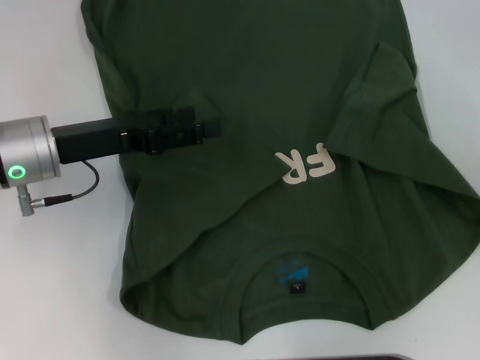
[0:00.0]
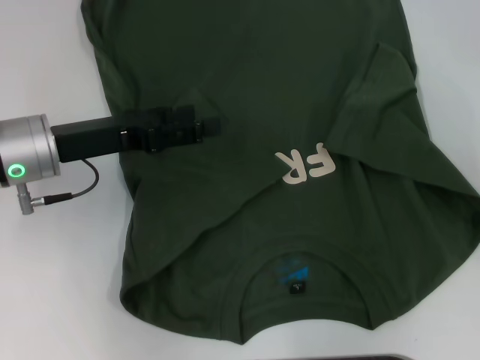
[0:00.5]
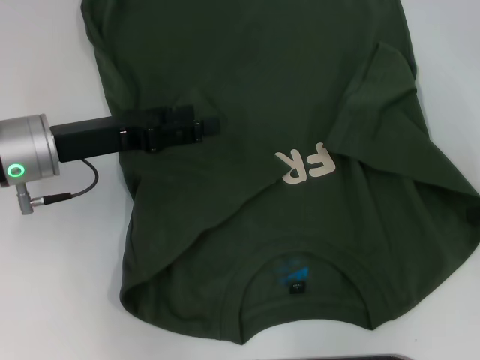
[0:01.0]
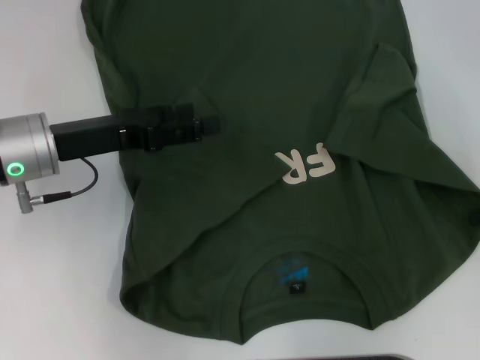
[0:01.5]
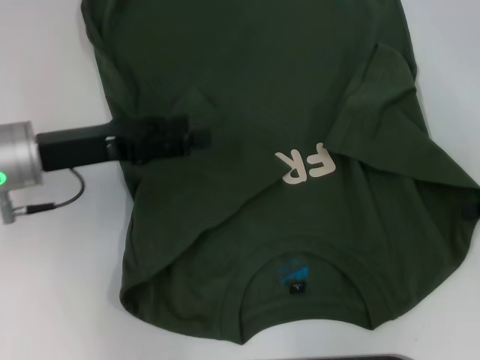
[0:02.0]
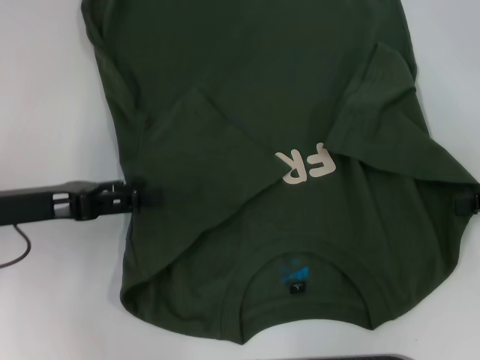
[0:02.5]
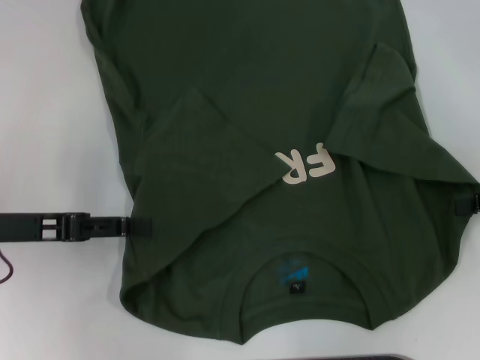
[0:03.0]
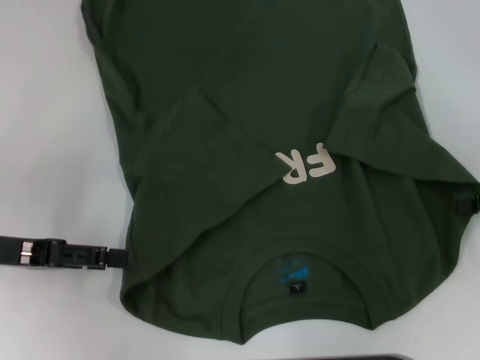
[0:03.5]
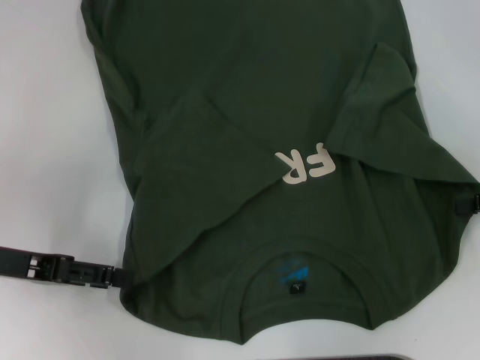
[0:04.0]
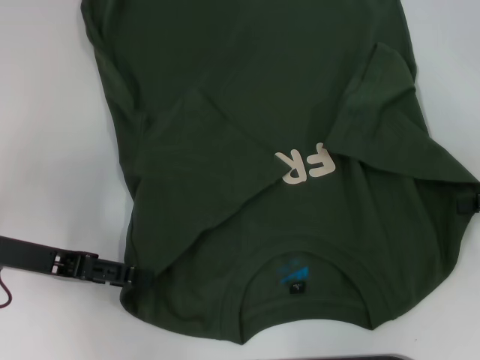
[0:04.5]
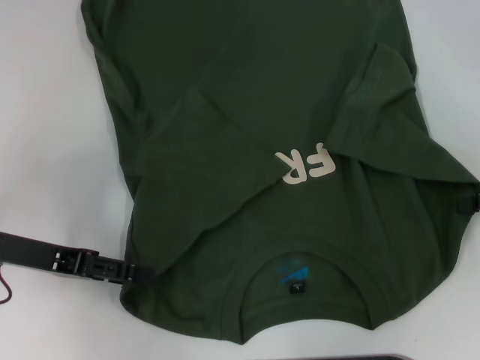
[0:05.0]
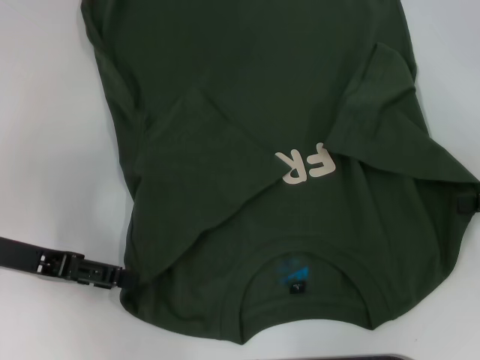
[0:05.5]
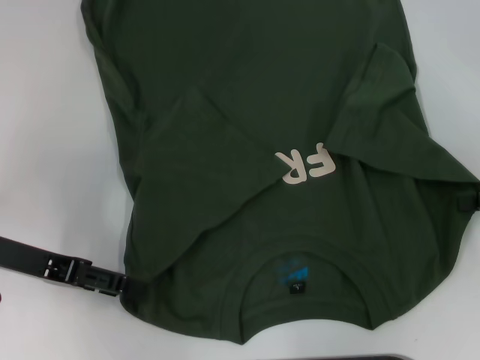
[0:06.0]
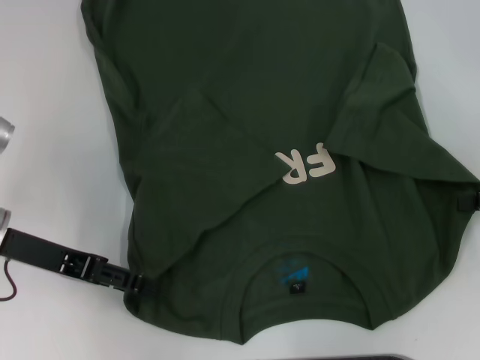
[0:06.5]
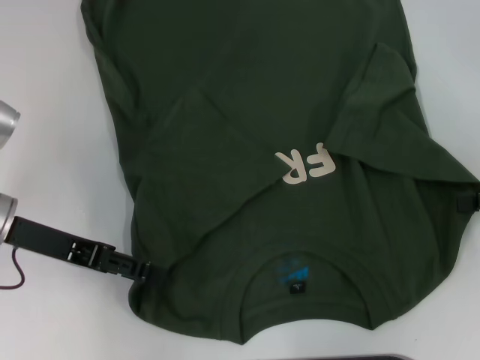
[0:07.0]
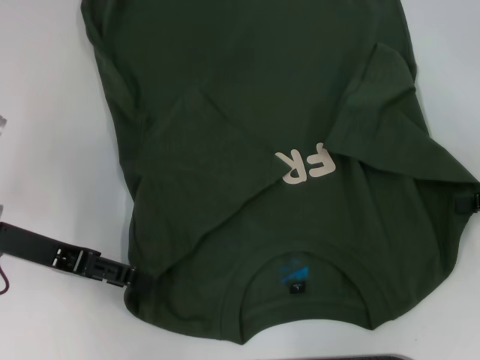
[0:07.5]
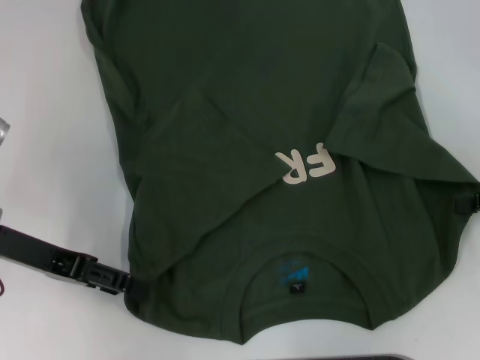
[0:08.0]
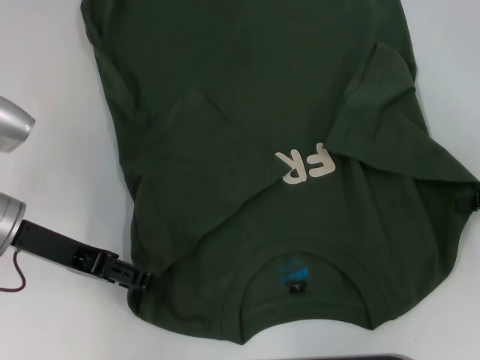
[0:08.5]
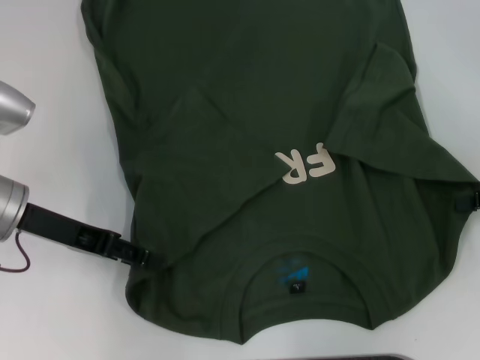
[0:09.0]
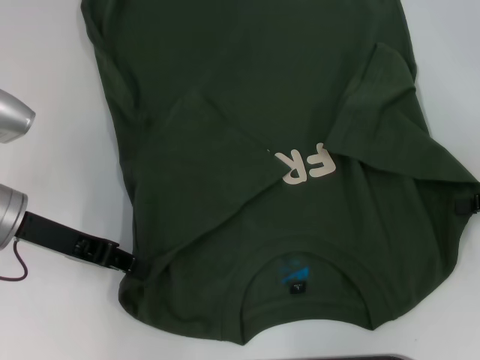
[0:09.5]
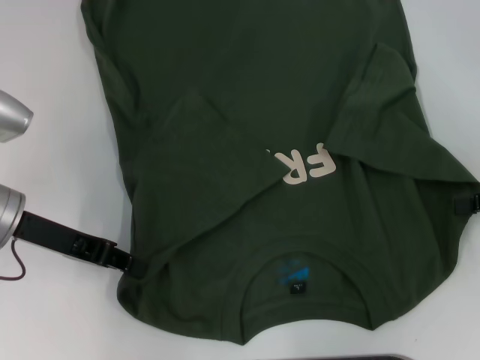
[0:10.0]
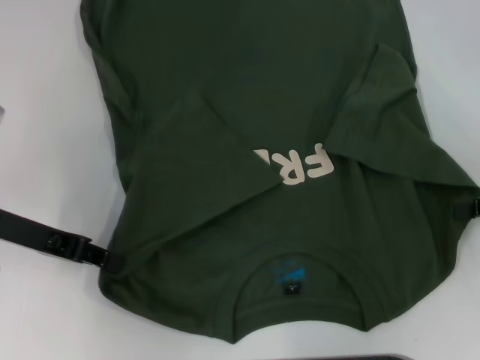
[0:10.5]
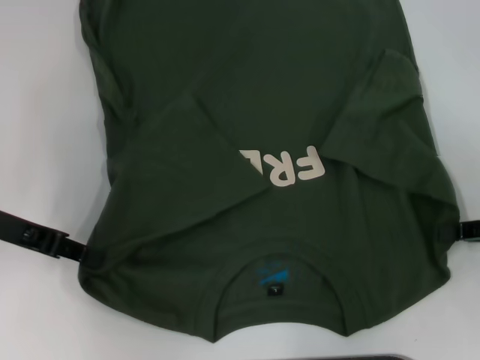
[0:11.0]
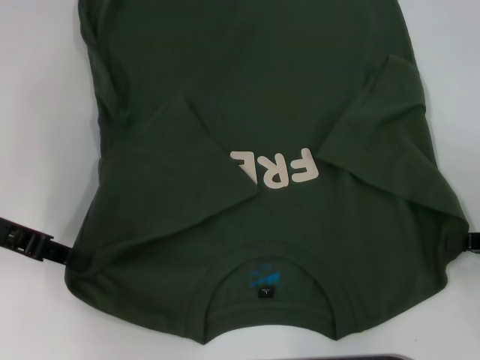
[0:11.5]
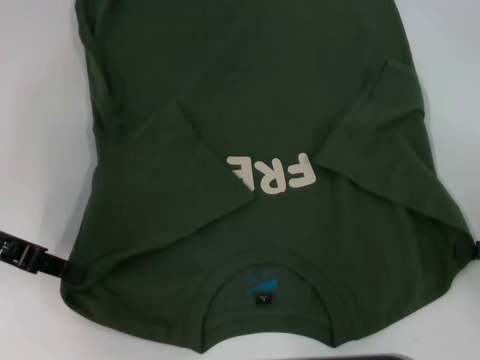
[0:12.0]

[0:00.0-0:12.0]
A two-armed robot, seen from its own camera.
Step, 0:00.0 to 0:02.5: Grab the bottom right corner with your right hand.
Step, 0:03.0 to 0:09.5: Grab the bottom left corner with your left hand.
0:00.0 to 0:02.0: There are only small adjustments of the grippers.
0:02.0 to 0:04.0: The left gripper is displaced to the left and backward by approximately 10 cm.
0:04.0 to 0:08.0: The grippers stay close to where they were, moving slightly.
0:08.0 to 0:10.0: The left gripper closes.
0:10.0 to 0:12.0: The right gripper moves backward, roughly 5 cm, while the left gripper goes approximately 5 cm to the left.

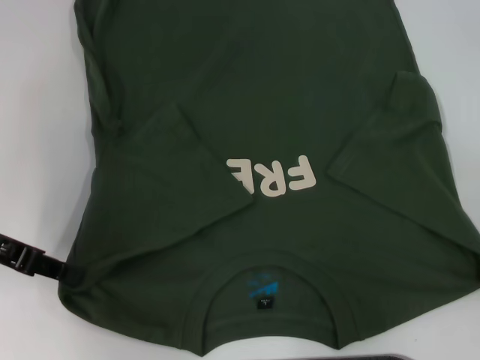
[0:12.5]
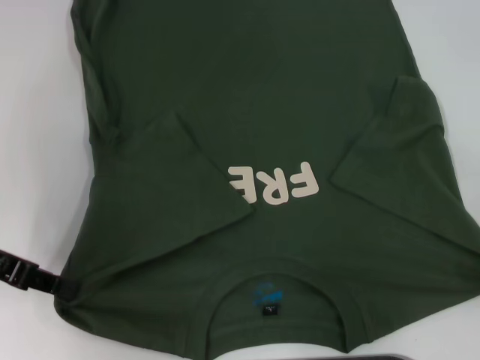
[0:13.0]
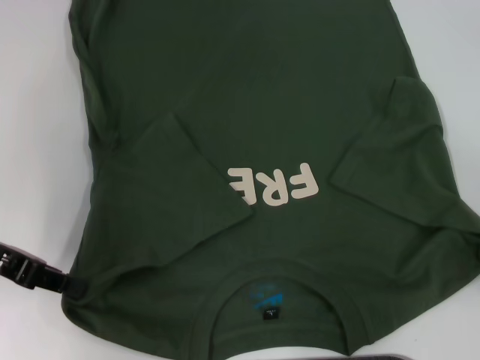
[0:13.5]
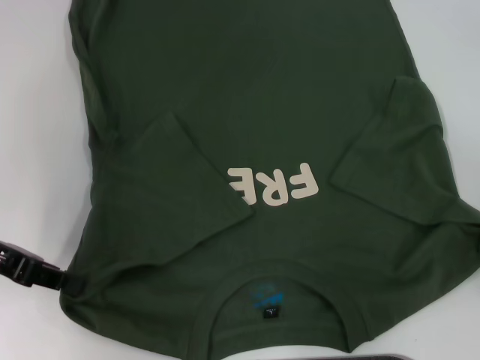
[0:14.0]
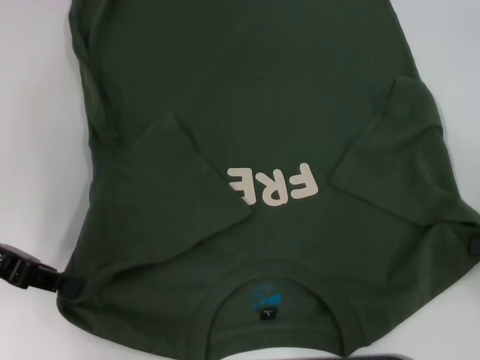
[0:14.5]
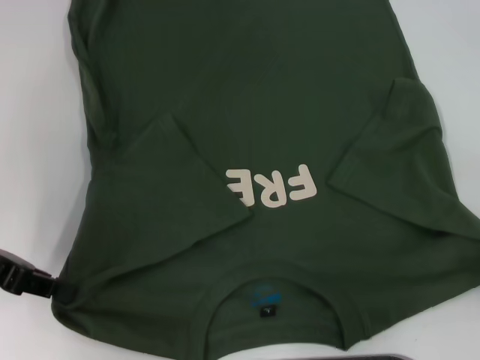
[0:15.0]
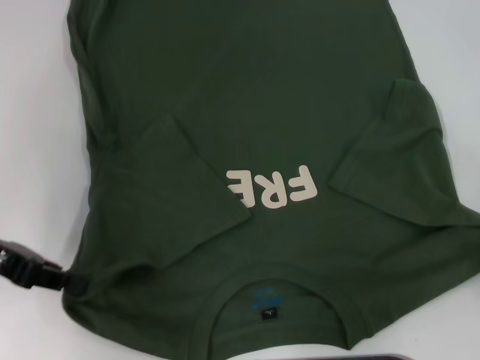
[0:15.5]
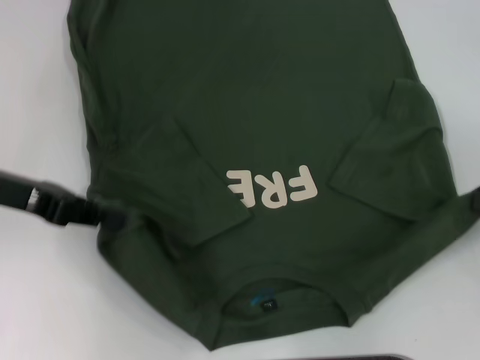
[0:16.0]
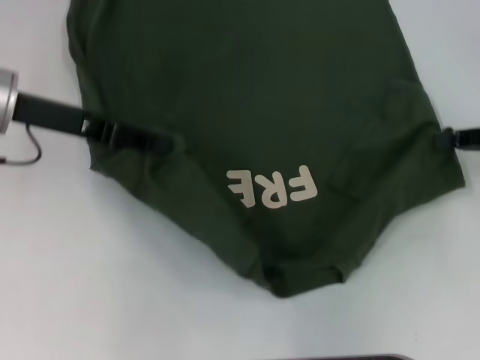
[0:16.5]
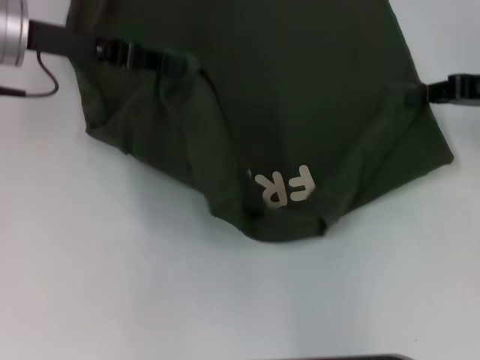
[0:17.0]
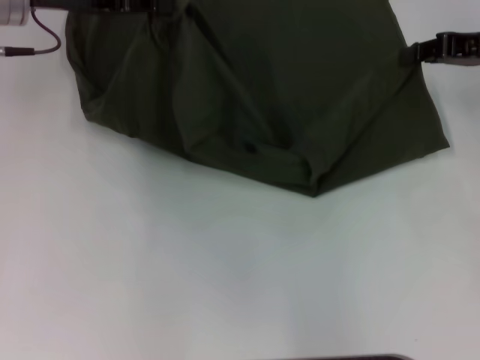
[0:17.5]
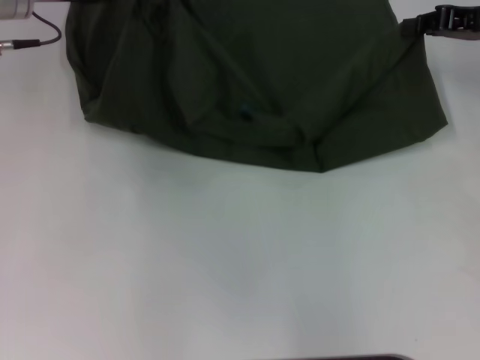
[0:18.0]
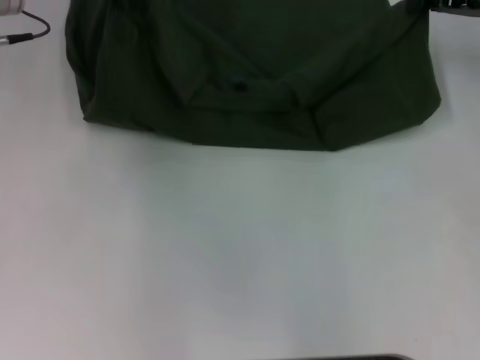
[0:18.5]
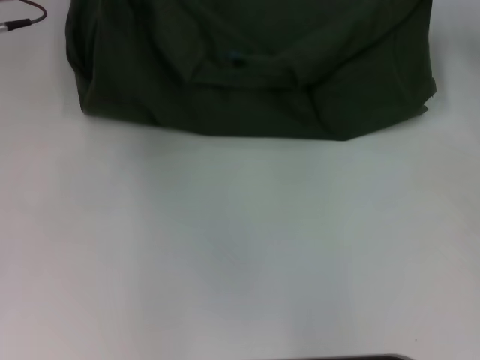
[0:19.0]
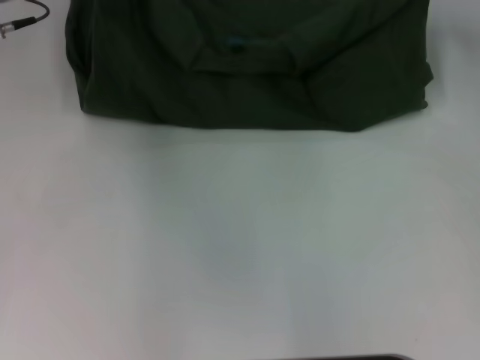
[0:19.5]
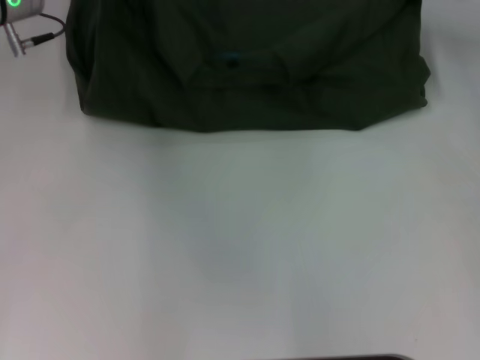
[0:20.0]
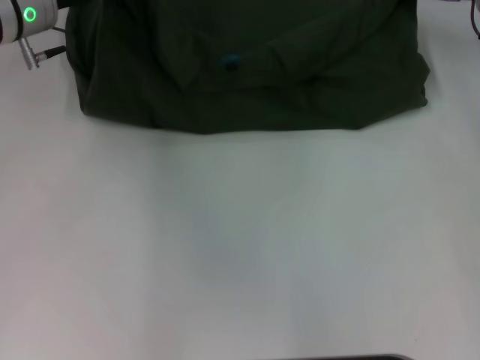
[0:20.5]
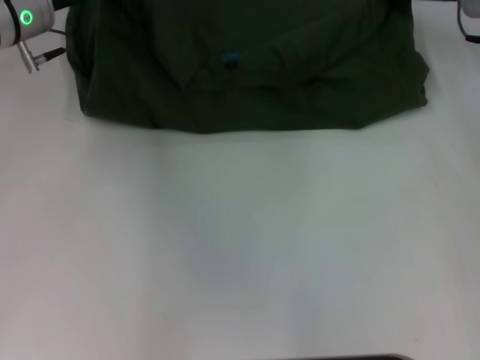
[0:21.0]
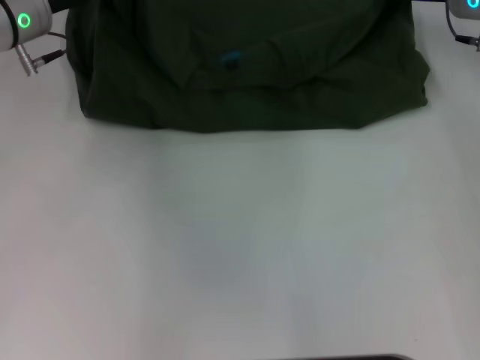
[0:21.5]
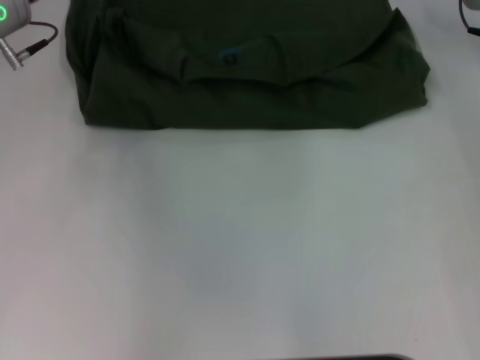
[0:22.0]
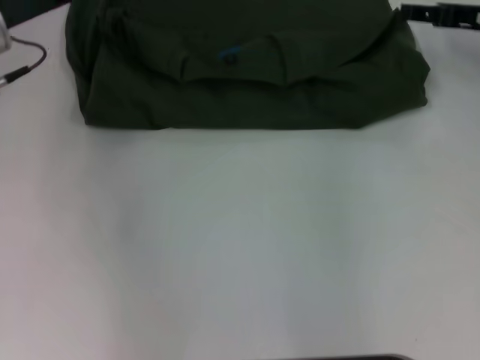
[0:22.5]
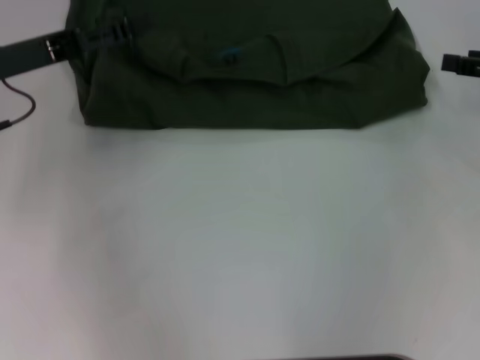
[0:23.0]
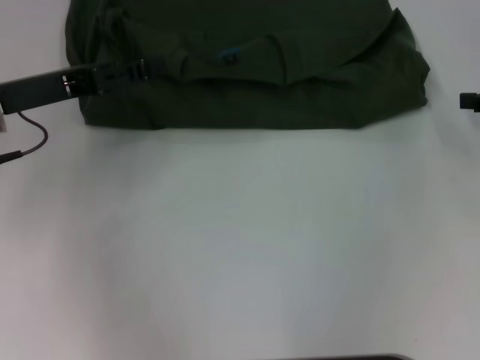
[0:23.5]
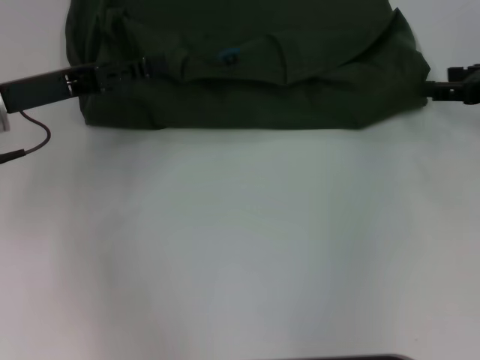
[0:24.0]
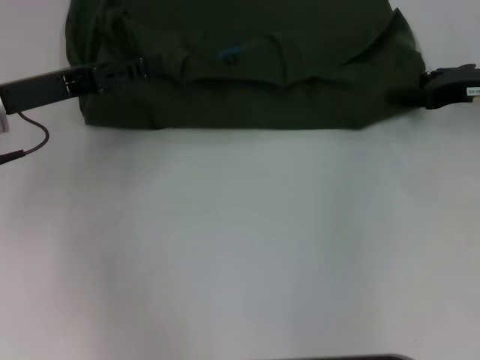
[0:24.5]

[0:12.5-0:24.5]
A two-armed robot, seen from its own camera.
Step, 0:12.5 to 0:21.5: Fold the clothes with your left hand.
Step, 0:12.5 to 0:21.5: Fold the clothes with your right hand.
0:12.5 to 0:14.5: The grippers make only small movements.
0:14.5 to 0:16.5: The left gripper goes approximately 10 cm forward and to the right, while the right gripper is displaced forward by about 10 cm.
0:16.5 to 0:18.5: Both grippers travel together forward, about 10 cm.
0:18.5 to 0:20.5: The right gripper changes place by some 5 cm.
0:20.5 to 0:22.5: The left gripper changes place by roughly 5 cm, and opens. The right gripper shifts by roughly 5 cm, and opens its fingers.
0:22.5 to 0:24.5: The left gripper heads backward, covering about 5 cm.

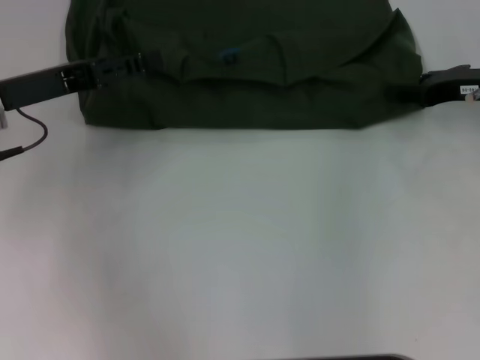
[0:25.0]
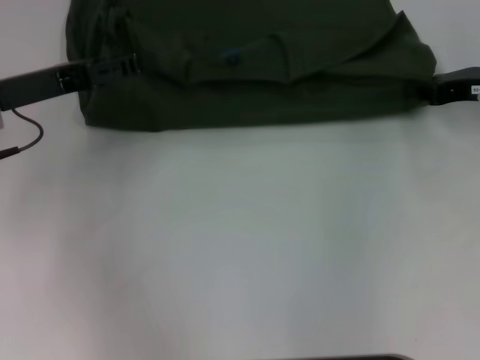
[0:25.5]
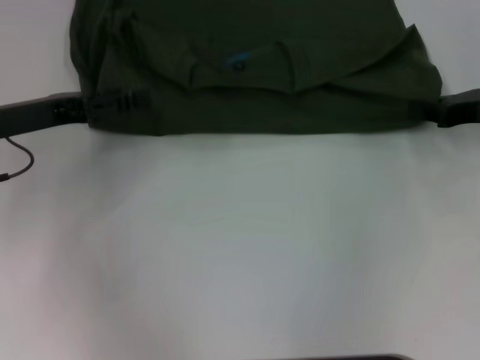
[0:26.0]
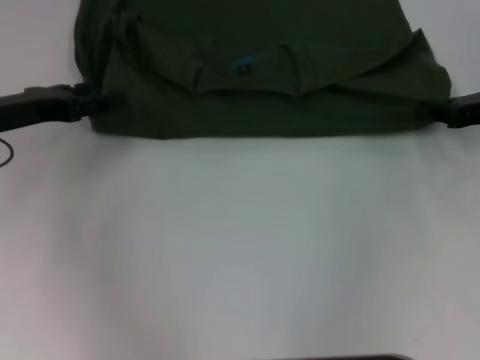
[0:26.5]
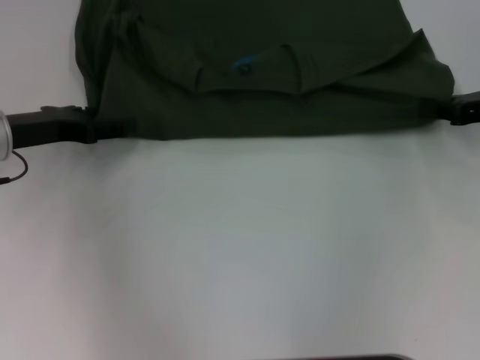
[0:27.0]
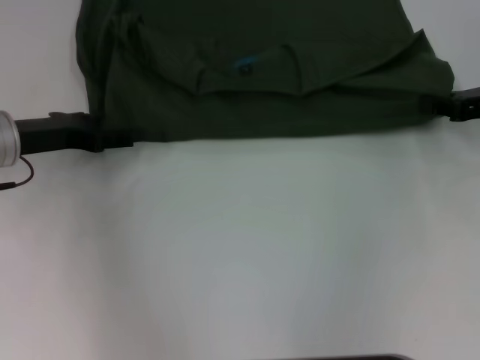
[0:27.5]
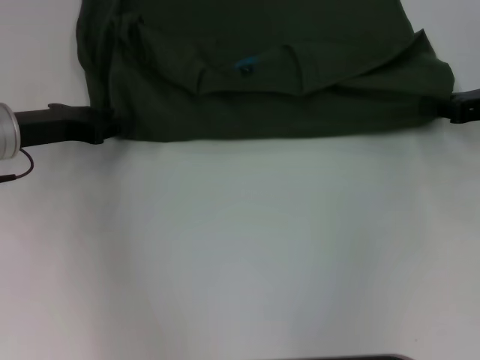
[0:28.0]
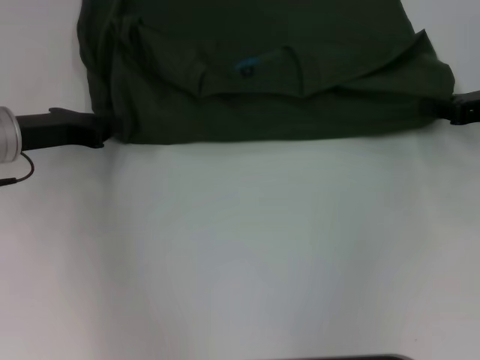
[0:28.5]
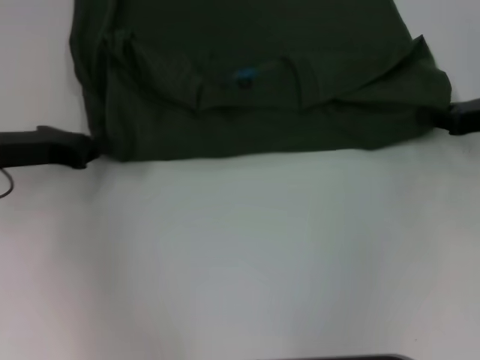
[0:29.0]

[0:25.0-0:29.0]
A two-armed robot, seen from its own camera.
0:25.0 to 0:27.0: The right gripper closes up.
0:27.0 to 0:29.0: The left gripper closes.
